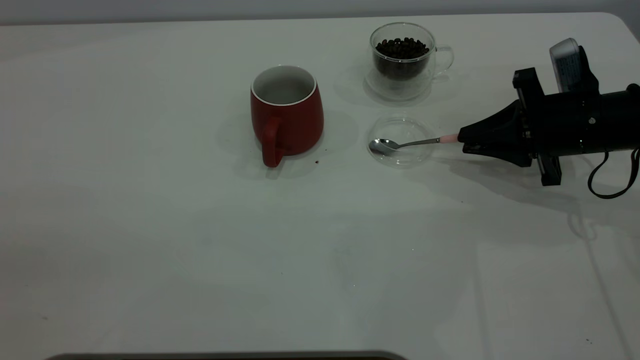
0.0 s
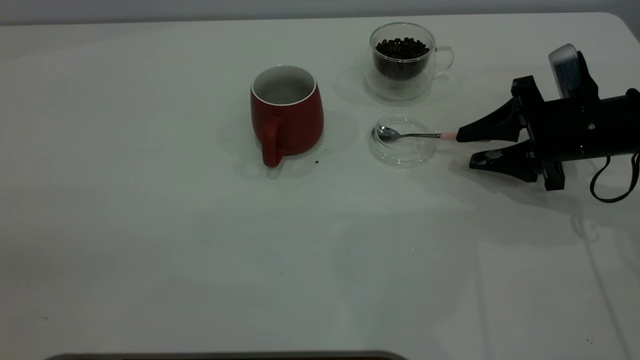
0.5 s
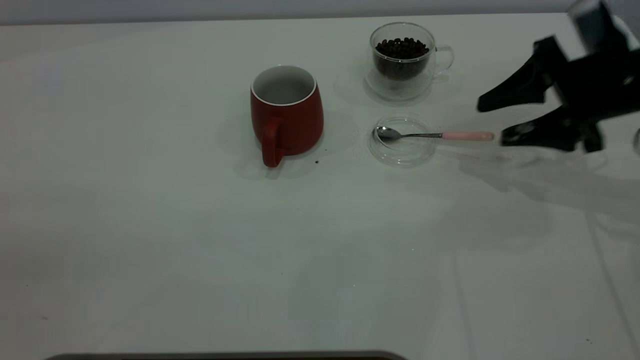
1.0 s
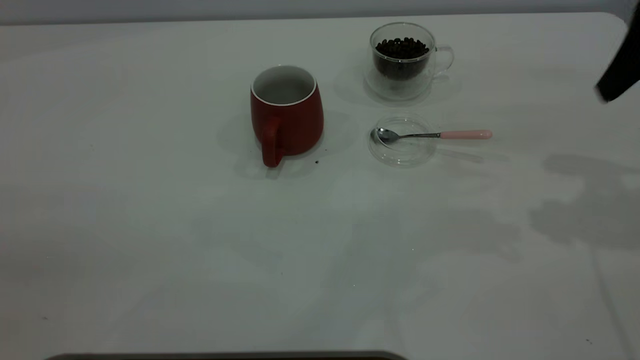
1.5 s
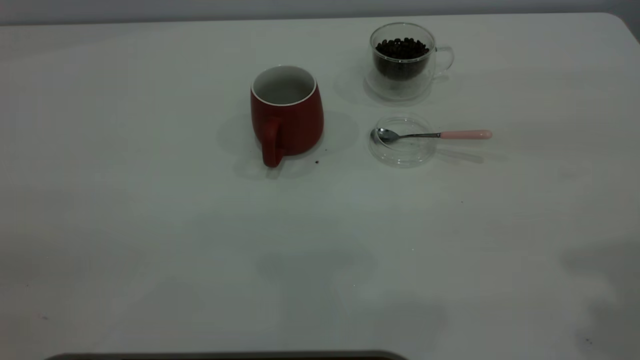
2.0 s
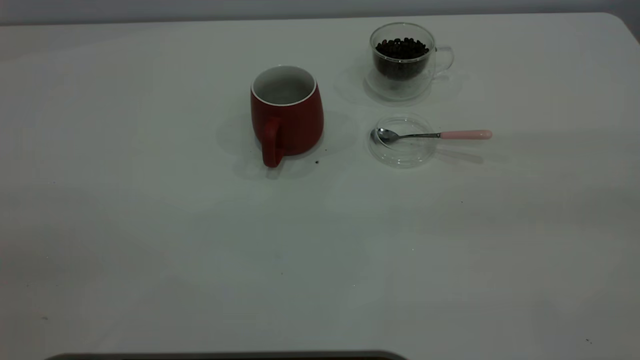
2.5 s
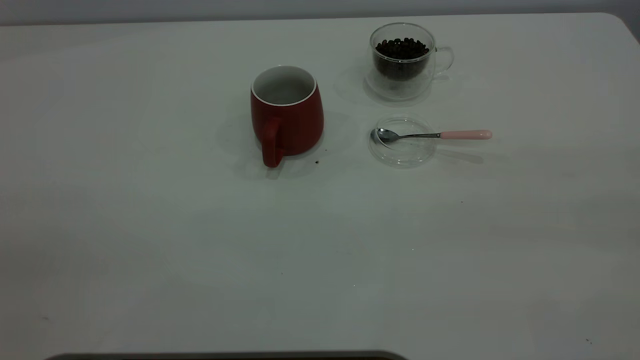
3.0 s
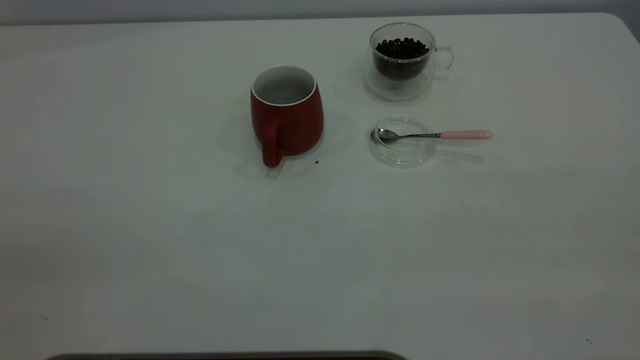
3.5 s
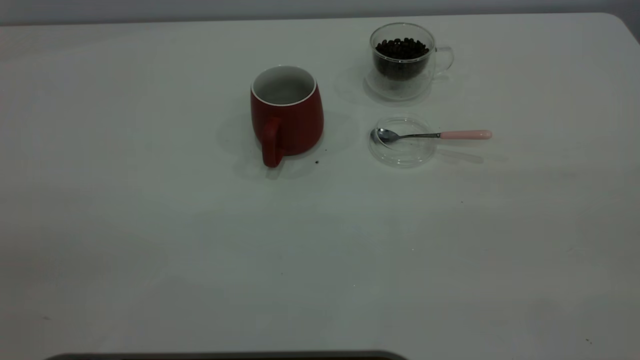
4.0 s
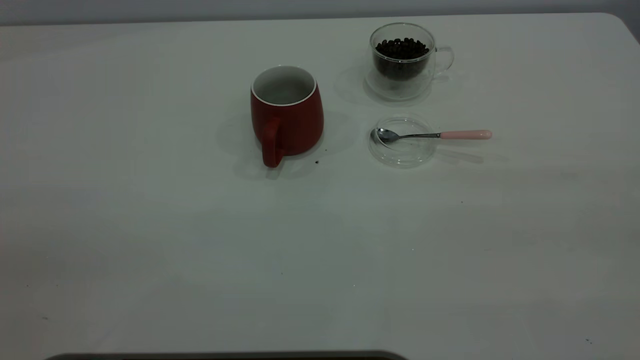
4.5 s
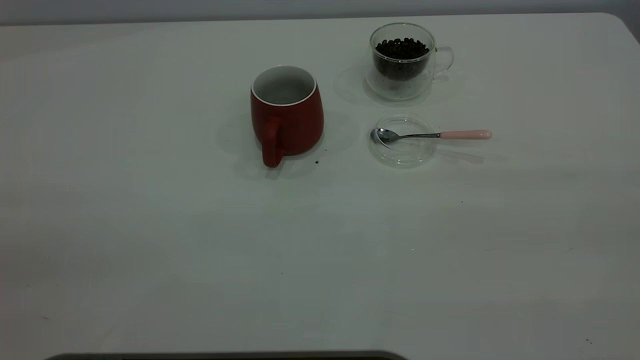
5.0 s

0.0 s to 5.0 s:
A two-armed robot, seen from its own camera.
Task of the whole recording: the left gripper place the red cup in the center of the table, the right gripper take the pink spoon from the cup lid and scoop out the coffee beans from the coffee cup and put them into the red cup, the right gripper put the spoon back into the cup lid.
0.0 to 2.5 s: The right gripper is displaced upward and backward by some 40 cm, and opens its fingers.
